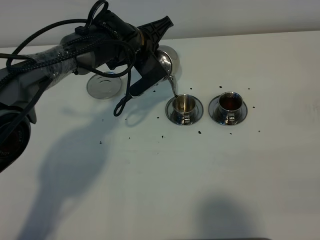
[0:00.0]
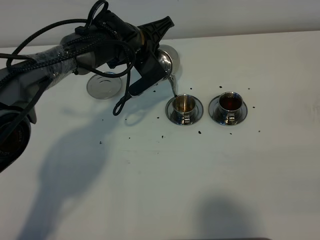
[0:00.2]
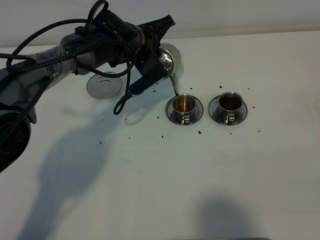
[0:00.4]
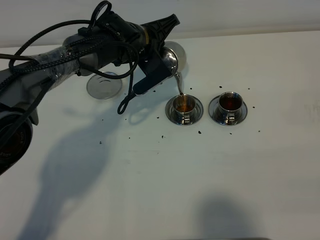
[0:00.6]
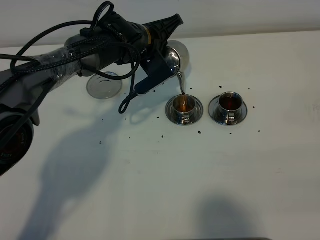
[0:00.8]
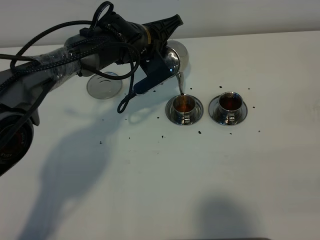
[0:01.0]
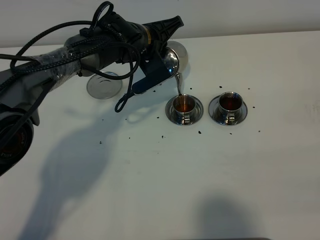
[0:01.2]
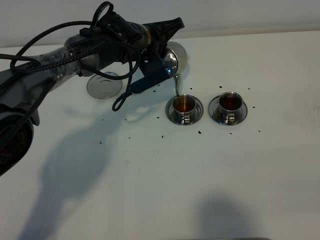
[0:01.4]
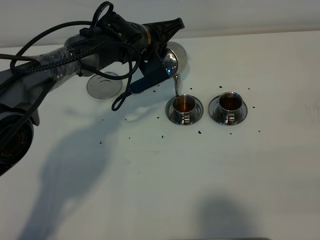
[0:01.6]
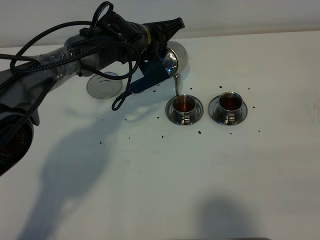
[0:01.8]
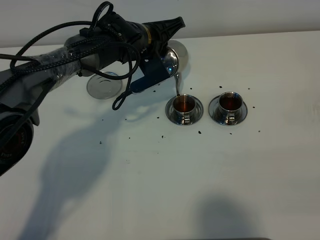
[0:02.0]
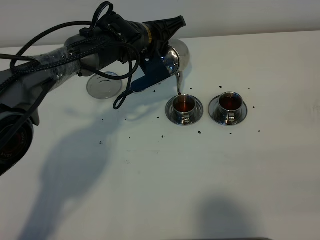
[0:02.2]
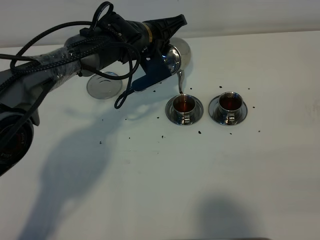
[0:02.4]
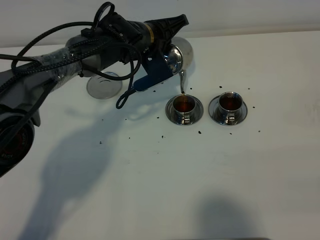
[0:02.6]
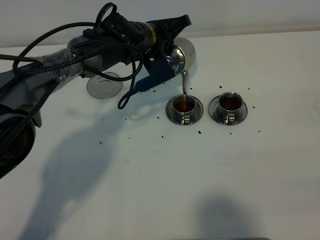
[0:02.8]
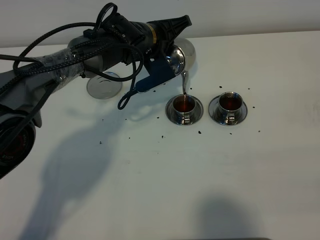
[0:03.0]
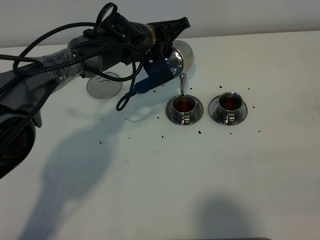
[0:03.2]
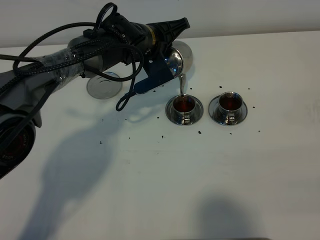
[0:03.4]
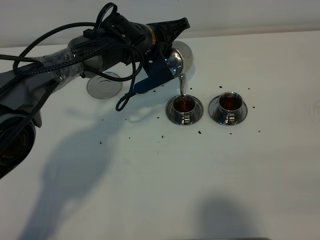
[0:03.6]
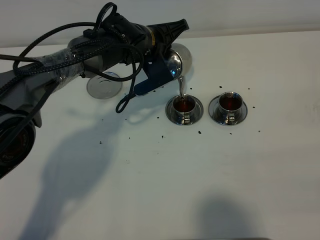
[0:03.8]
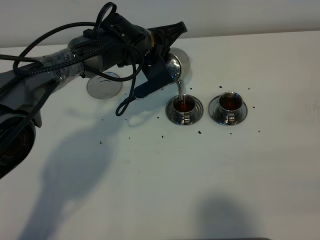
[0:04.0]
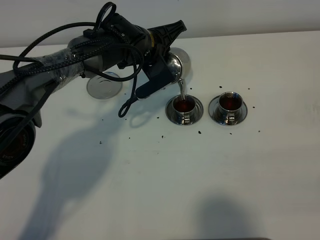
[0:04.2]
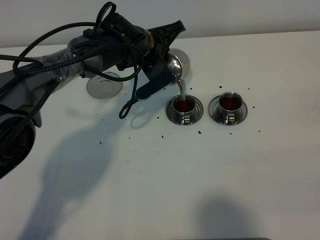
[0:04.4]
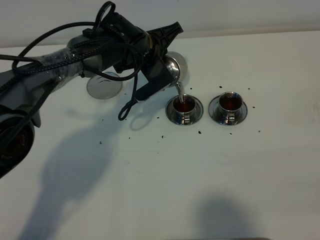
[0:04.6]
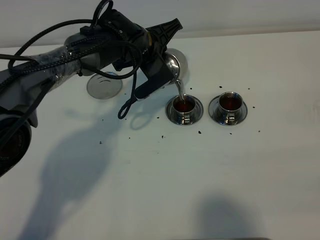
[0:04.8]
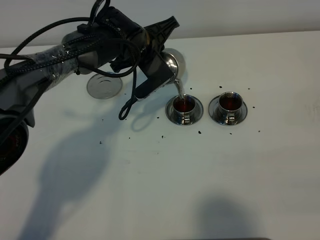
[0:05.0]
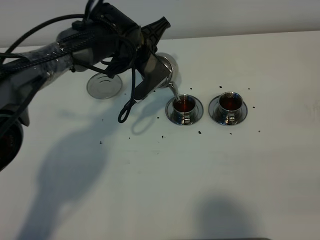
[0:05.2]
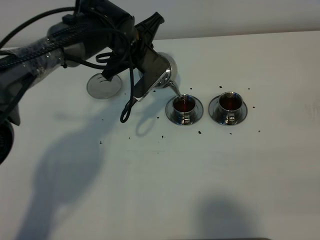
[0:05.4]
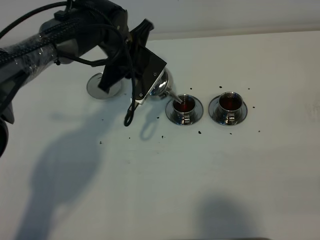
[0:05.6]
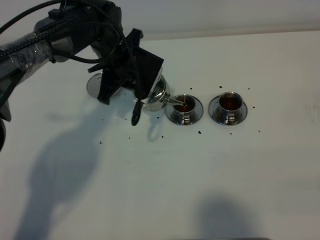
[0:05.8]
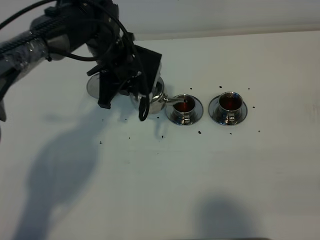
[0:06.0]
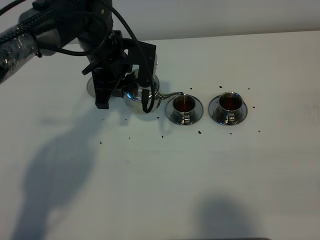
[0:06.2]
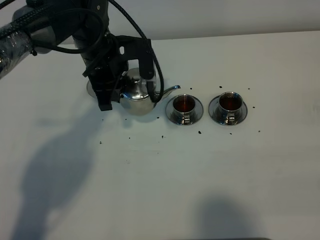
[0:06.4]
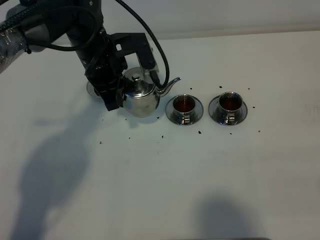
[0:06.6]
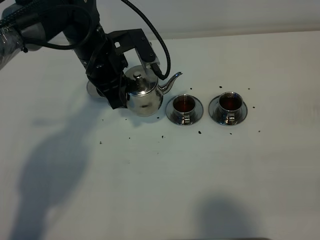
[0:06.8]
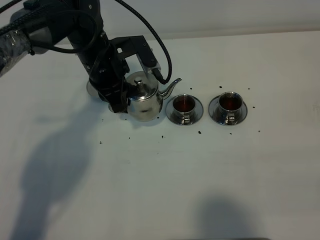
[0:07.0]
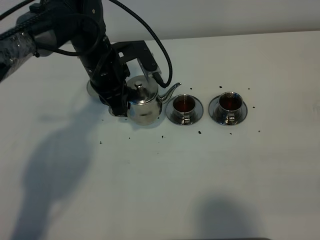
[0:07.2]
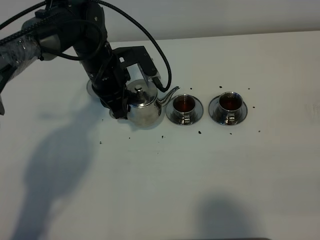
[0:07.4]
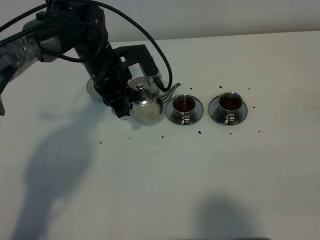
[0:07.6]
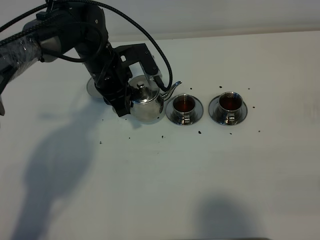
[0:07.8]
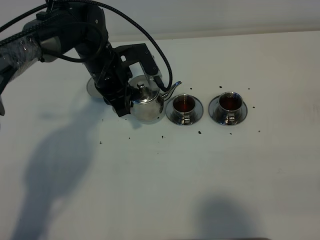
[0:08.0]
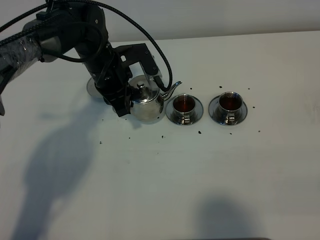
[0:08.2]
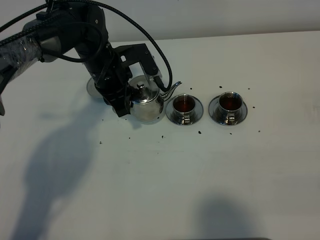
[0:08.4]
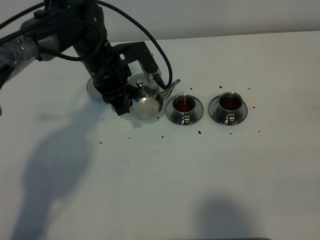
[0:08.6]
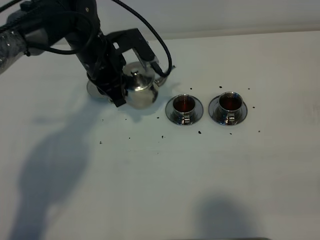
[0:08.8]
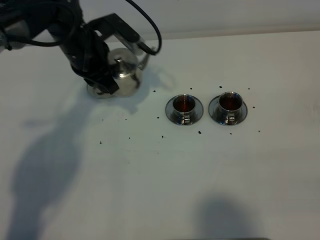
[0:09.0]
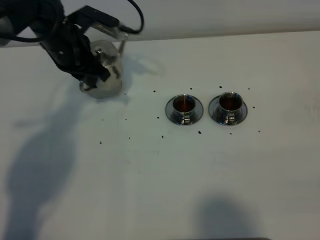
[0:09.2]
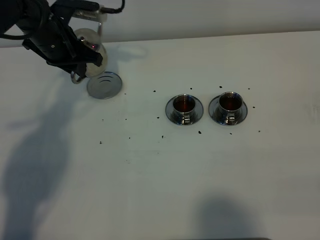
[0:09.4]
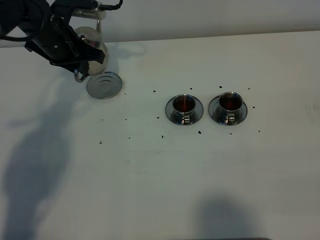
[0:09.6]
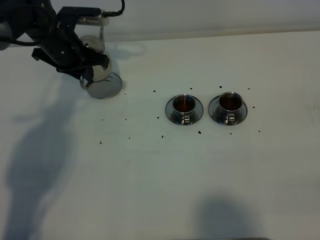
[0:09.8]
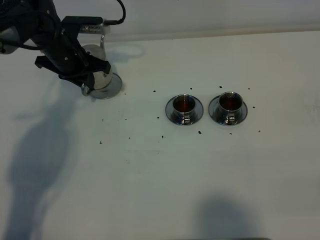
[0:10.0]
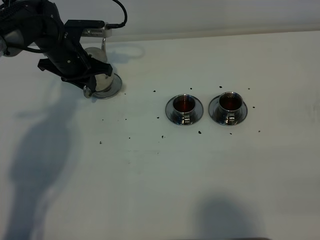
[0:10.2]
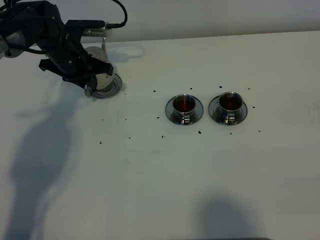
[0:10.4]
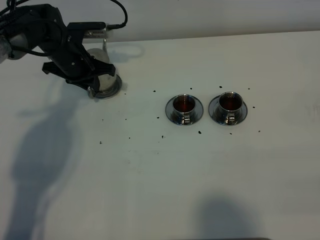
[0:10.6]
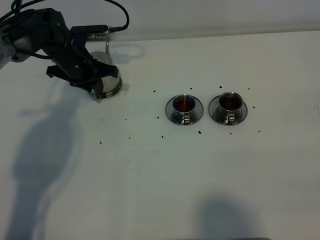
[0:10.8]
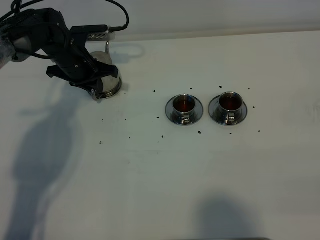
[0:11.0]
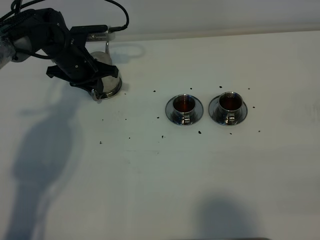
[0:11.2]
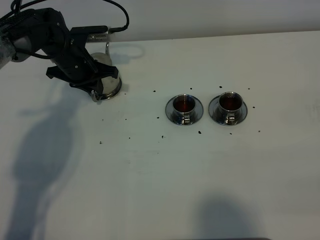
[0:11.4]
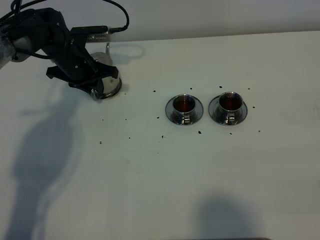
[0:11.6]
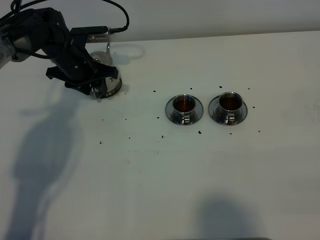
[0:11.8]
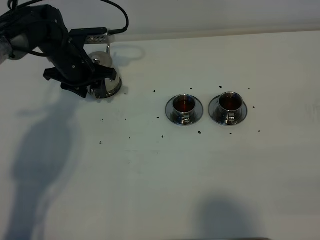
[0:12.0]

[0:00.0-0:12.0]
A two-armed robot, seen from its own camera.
Task of the whole recording: grasp the stainless steel teapot and pour the tea into the two stainless steel teacups one by one, put the stainless steel teapot back in its original place.
Step, 0:00.0 to 0:05.6: Pour tea into the teacup with the left gripper.
0:00.0 to 0:01.6: The grippers stay close to where they were, moving slightly.
0:01.6 to 0:03.0: Neither gripper changes place.
0:03.0 to 0:04.4: The grippers move only a little.
0:04.4 to 0:06.0: The left gripper is displaced to the left by approximately 5 cm.
0:07.6 to 0:09.0: The left gripper travels upward by some 5 cm.
0:09.0 to 0:10.4: The left gripper is displaced downward, to the left and forward by approximately 10 cm.
0:10.4 to 0:12.0: The left gripper opens.

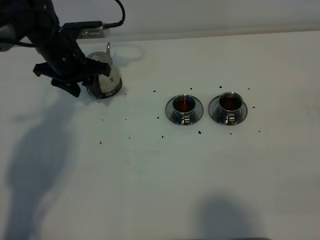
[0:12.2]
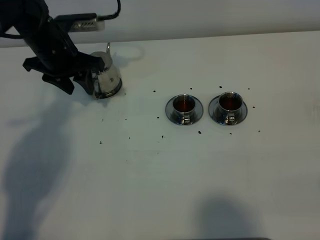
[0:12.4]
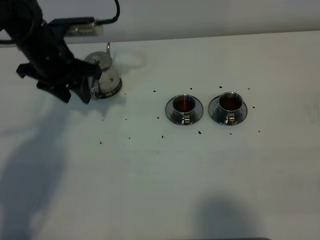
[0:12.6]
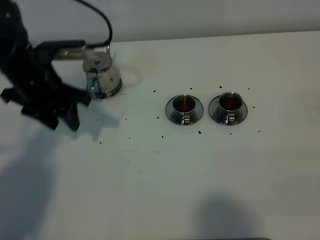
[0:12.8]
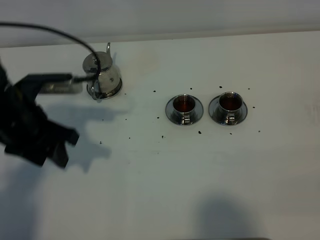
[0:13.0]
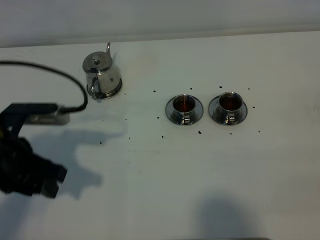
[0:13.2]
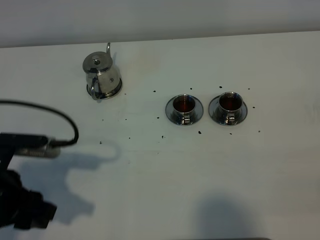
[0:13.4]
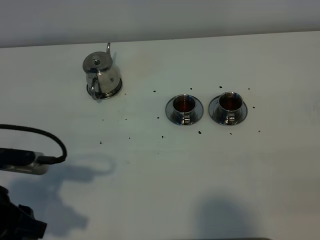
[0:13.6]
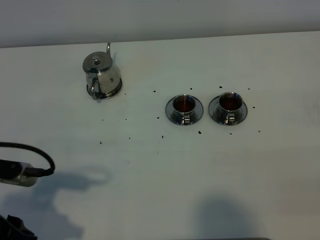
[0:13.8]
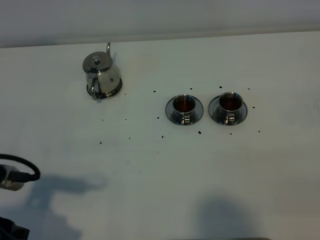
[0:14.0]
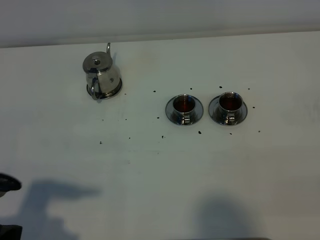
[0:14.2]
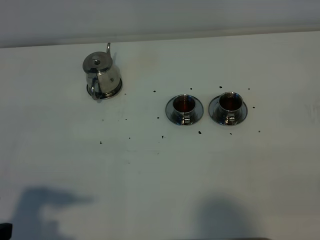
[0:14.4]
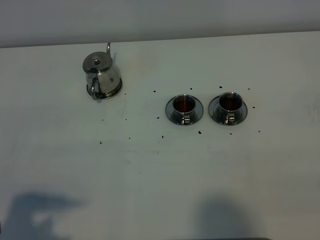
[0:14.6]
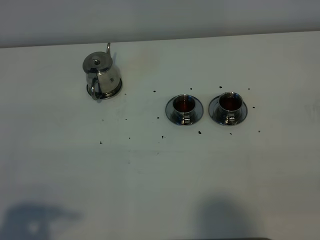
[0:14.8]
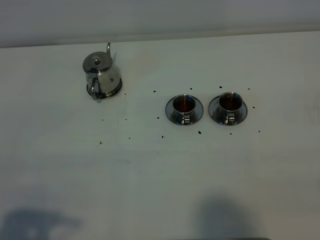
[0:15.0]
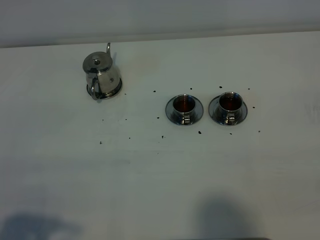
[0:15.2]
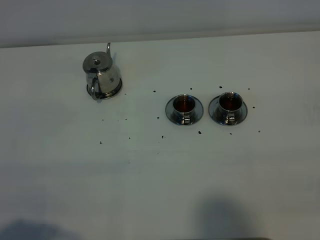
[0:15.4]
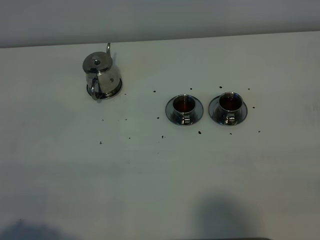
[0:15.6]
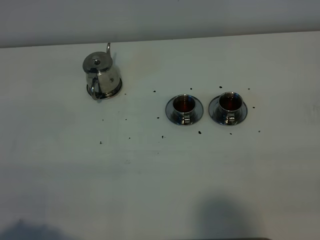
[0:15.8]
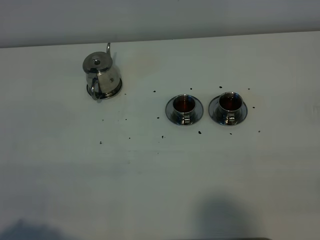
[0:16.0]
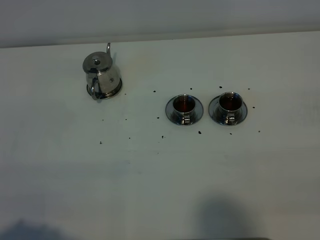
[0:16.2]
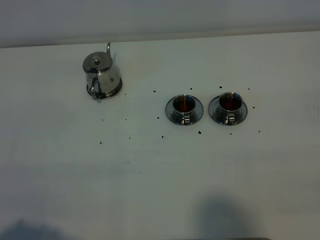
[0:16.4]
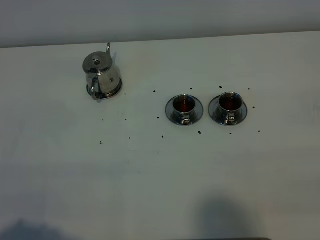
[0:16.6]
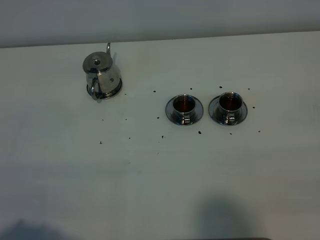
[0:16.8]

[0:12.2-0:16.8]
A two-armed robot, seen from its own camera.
Task of the whole recording: grasp the stainless steel teapot and pour the tea into the two stainless steel teacups one by one, put the stainless steel teapot back in its original place.
0:12.2 to 0:13.8: The left gripper shifts about 35 cm backward.
0:13.8 to 0:15.2: The left gripper shifts about 10 cm backward.
